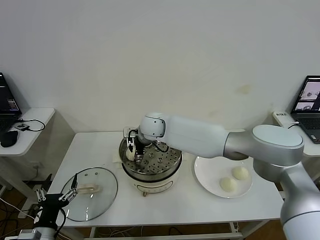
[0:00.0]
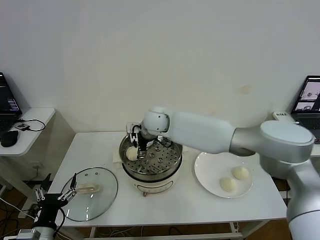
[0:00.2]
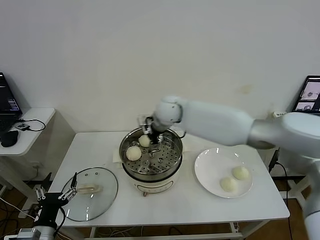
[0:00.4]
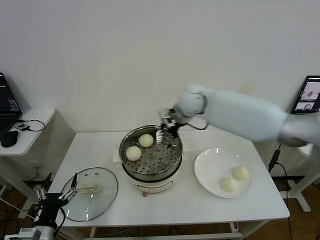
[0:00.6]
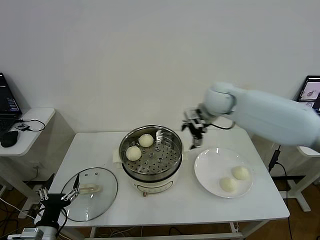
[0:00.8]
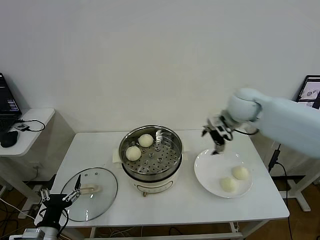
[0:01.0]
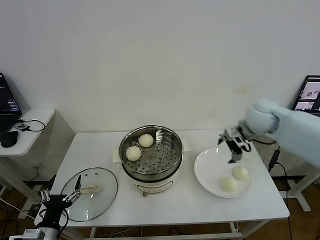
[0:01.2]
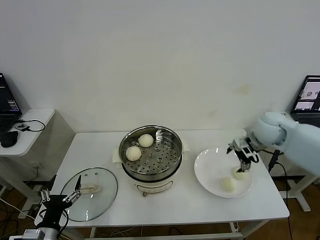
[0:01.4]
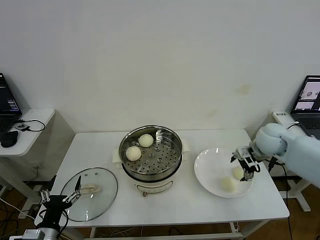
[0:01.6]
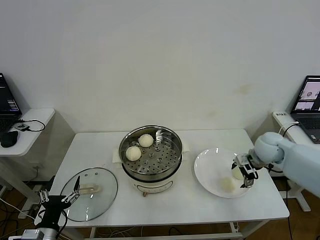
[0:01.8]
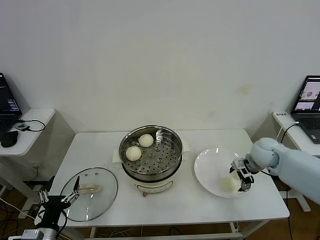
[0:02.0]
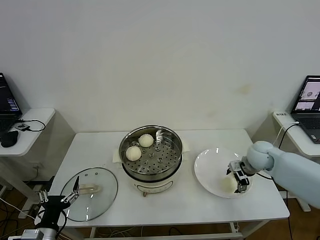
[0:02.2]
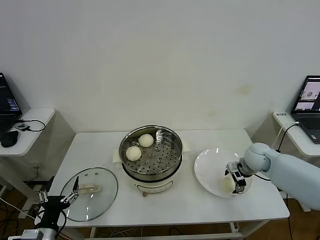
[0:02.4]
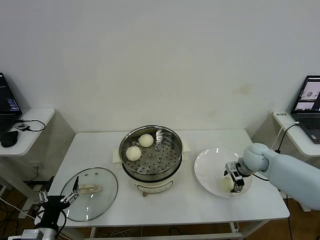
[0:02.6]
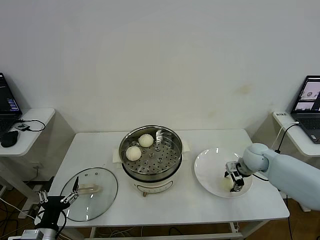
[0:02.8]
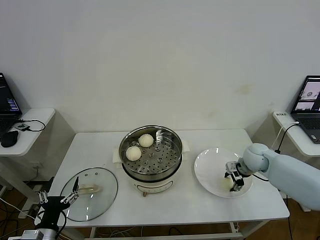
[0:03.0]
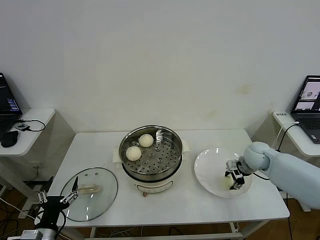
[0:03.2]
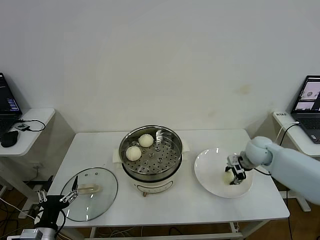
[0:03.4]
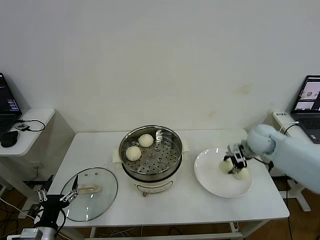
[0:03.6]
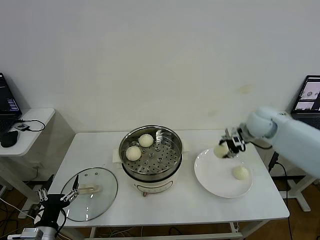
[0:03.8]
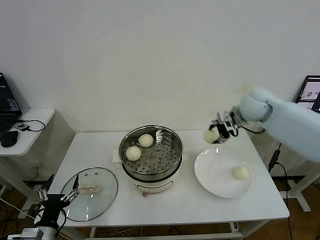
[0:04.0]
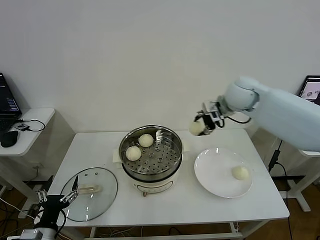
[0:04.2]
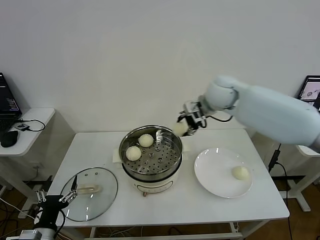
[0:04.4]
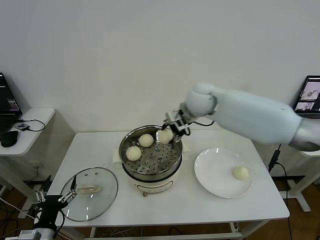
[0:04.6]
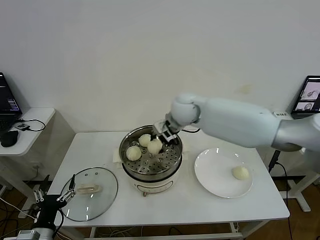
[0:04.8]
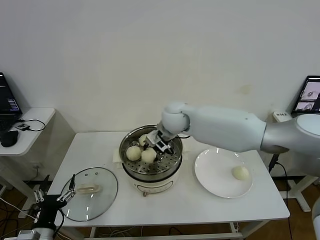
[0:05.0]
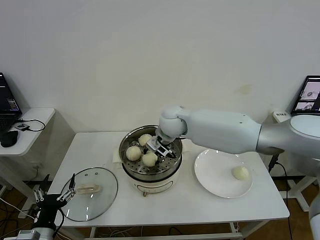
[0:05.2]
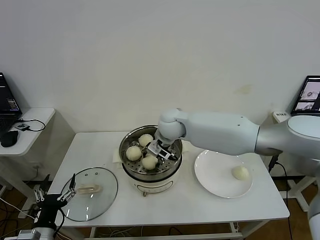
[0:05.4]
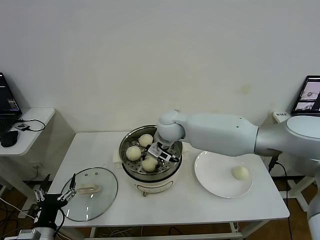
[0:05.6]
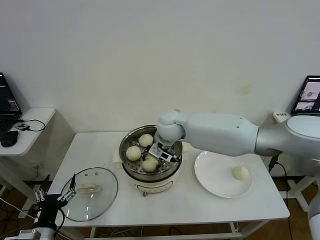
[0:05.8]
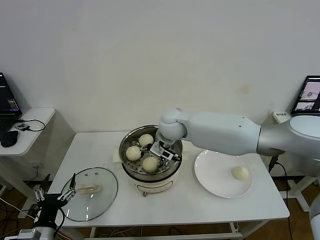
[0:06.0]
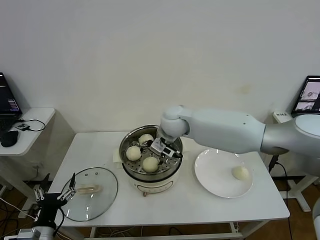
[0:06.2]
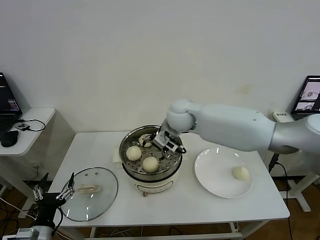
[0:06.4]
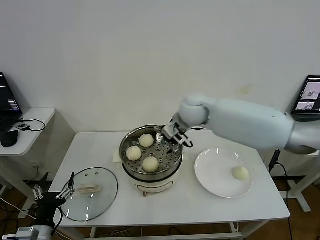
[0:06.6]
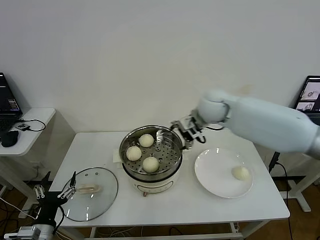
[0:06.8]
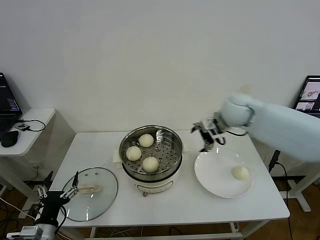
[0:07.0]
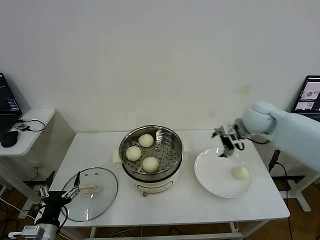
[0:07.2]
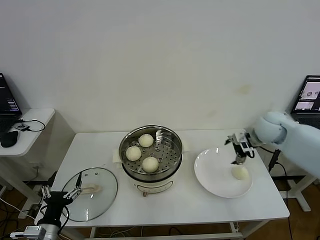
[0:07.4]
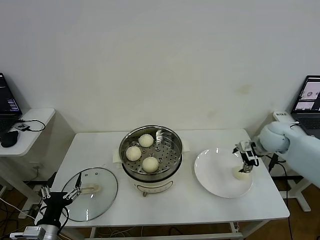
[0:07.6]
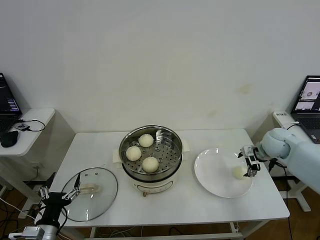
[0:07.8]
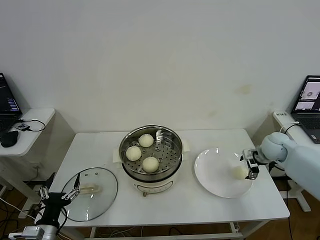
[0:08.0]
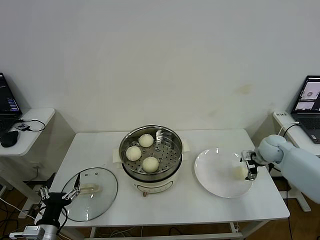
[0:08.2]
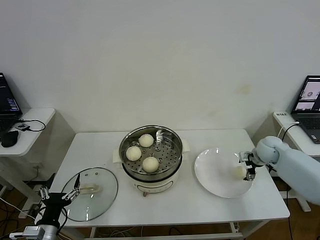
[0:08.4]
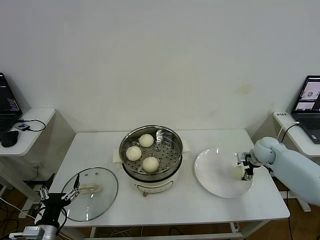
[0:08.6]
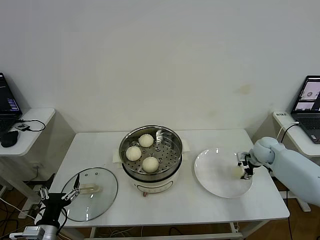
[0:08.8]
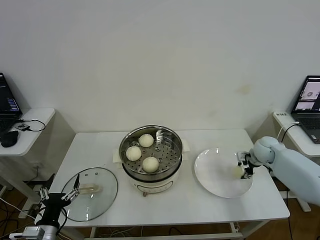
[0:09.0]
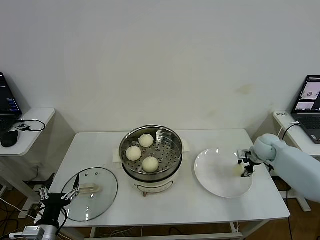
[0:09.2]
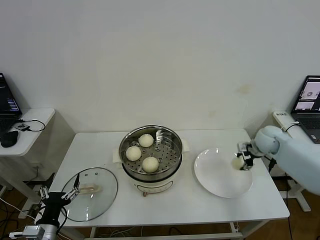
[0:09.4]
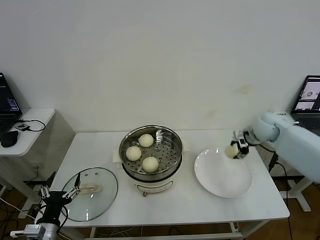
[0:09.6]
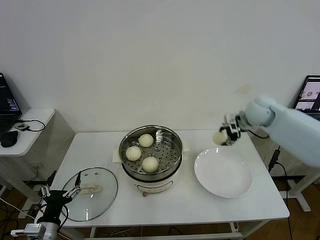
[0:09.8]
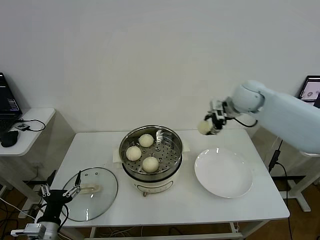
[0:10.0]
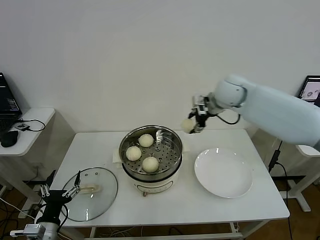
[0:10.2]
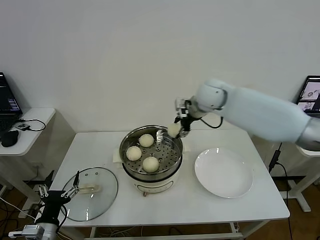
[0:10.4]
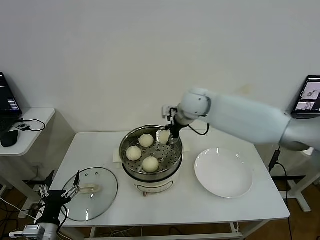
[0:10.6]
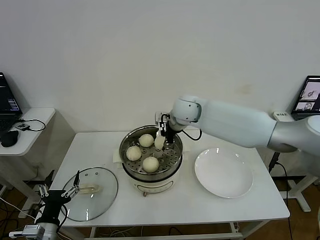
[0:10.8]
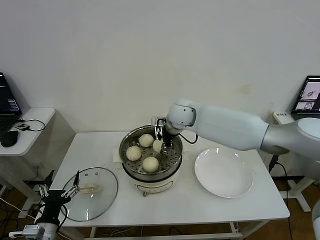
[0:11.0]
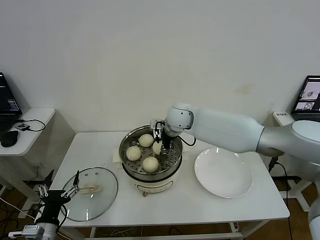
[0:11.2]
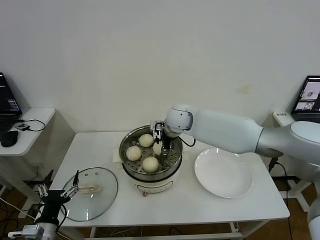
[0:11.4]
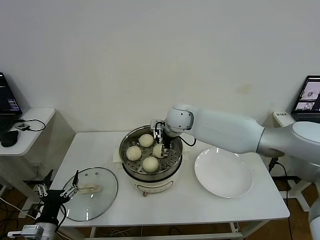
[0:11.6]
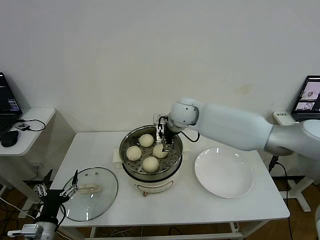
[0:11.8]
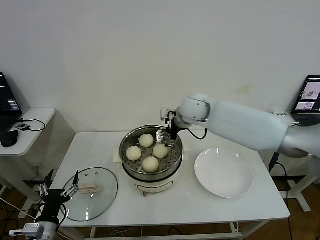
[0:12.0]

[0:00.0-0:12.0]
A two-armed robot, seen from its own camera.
Step, 0:00.0 to 0:02.8: Grasp the baozi in the plate with right gripper.
Step, 0:03.0 to 0:05.8: Place the baozi on the steamer with right gripper.
Step, 0:06.2 to 0:08.8: Grasp the baozi in the plate with right gripper.
Step, 0:09.0 to 0:11.4: Place the baozi on the steamer with right gripper.
0:00.0 to 0:01.6: The right gripper travels to the right by approximately 40 cm.
0:01.6 to 0:03.0: The right gripper moves downward, approximately 10 cm, and closes its fingers.
0:03.0 to 0:04.4: The right gripper is displaced upward and to the left by approximately 30 cm.
0:04.4 to 0:06.0: The right gripper heads to the left and downward, covering approximately 15 cm, and opens its fingers.
0:06.0 to 0:07.6: The right gripper goes about 35 cm to the right.
0:07.6 to 0:09.0: The right gripper travels downward by approximately 10 cm, and closes up.
0:09.0 to 0:10.4: The right gripper moves to the left and upward, some 35 cm.
0:10.4 to 0:12.0: The right gripper opens up.

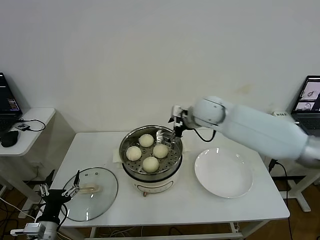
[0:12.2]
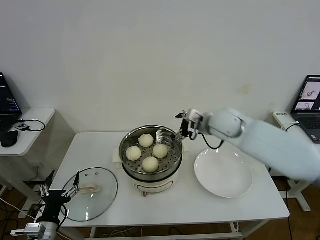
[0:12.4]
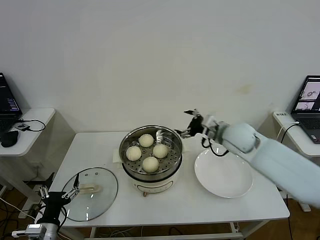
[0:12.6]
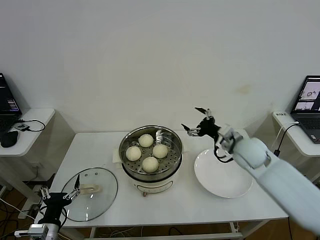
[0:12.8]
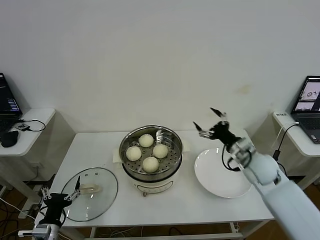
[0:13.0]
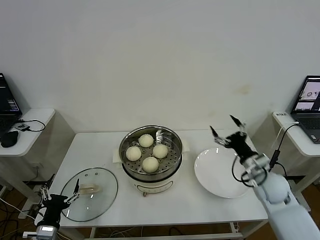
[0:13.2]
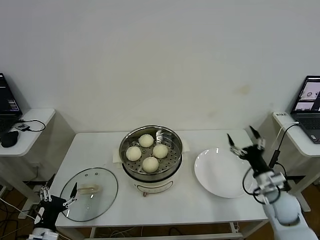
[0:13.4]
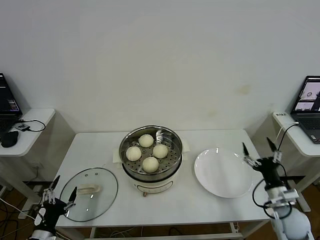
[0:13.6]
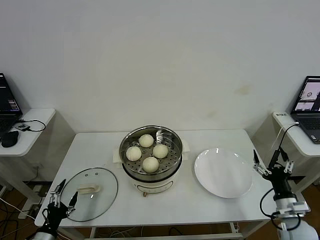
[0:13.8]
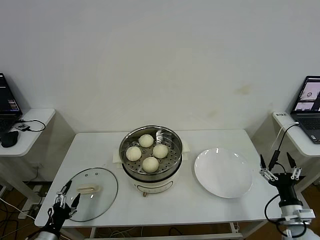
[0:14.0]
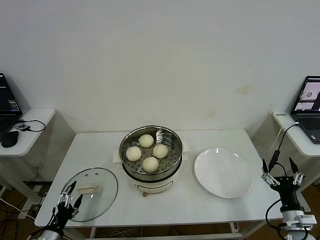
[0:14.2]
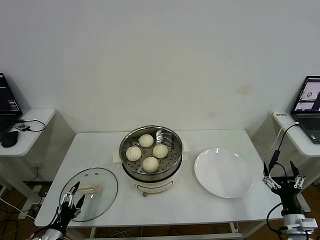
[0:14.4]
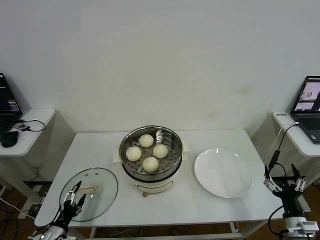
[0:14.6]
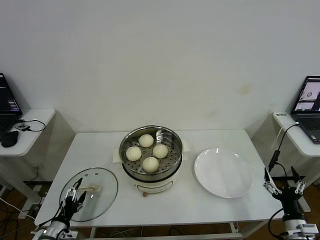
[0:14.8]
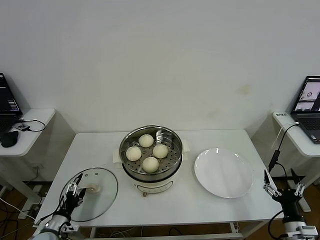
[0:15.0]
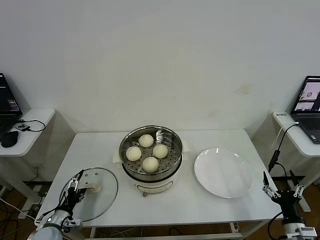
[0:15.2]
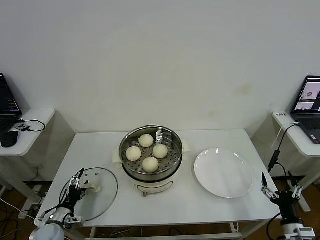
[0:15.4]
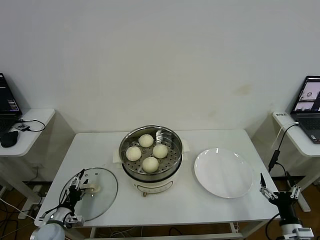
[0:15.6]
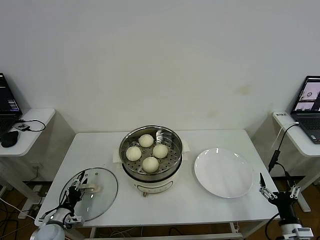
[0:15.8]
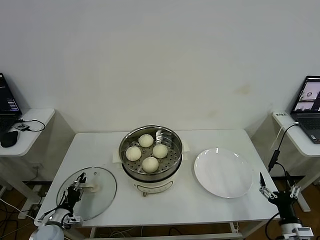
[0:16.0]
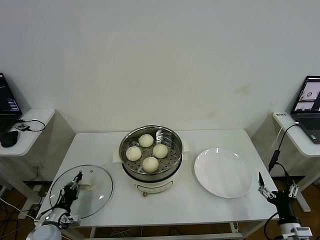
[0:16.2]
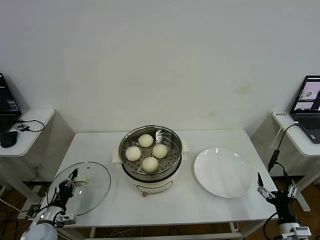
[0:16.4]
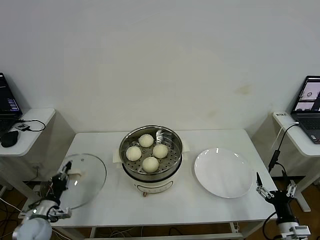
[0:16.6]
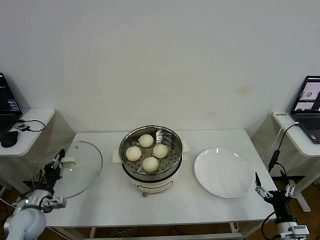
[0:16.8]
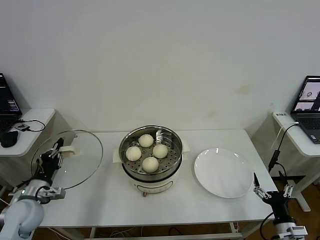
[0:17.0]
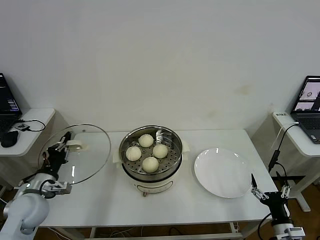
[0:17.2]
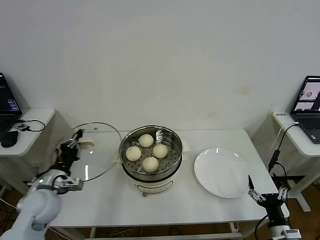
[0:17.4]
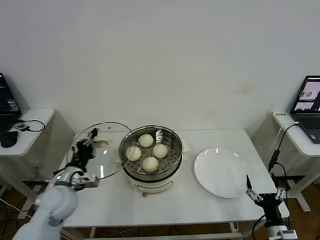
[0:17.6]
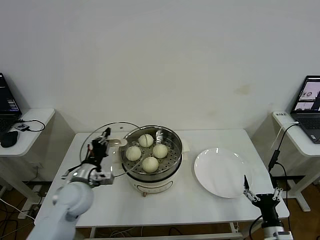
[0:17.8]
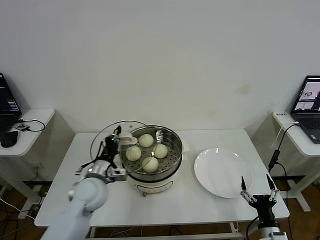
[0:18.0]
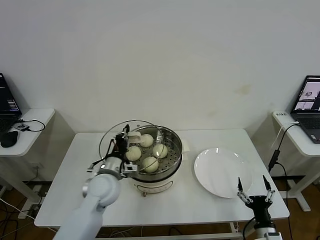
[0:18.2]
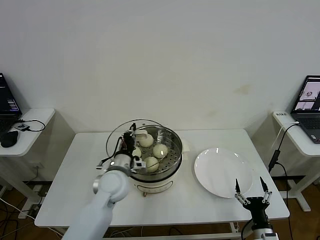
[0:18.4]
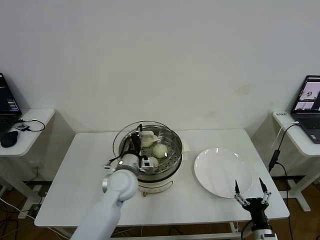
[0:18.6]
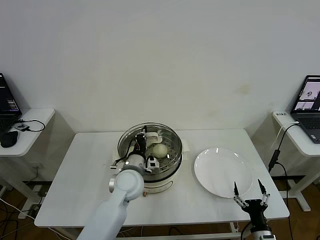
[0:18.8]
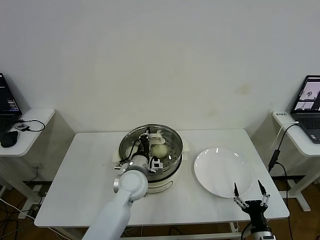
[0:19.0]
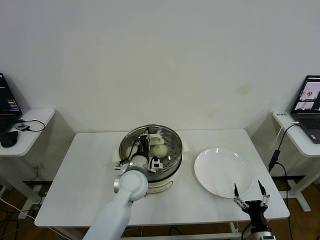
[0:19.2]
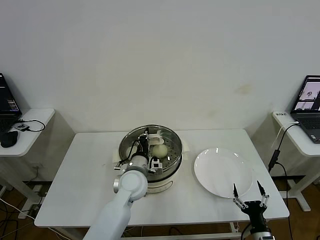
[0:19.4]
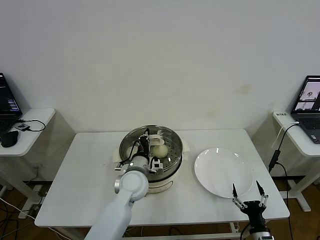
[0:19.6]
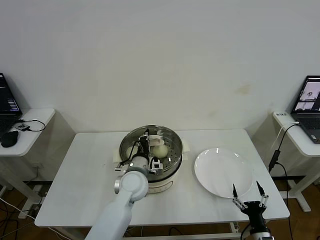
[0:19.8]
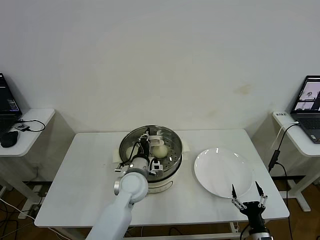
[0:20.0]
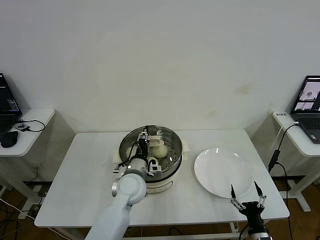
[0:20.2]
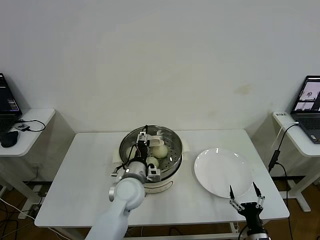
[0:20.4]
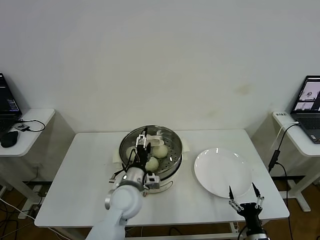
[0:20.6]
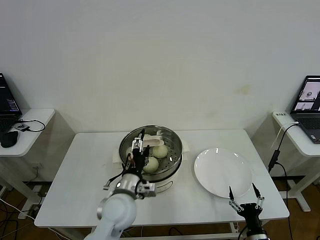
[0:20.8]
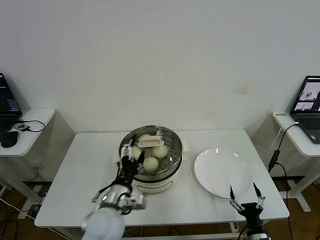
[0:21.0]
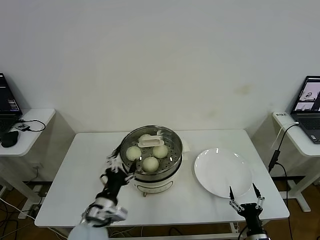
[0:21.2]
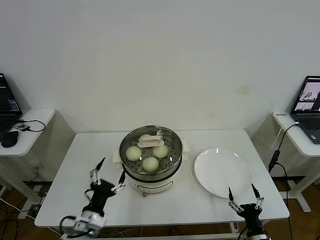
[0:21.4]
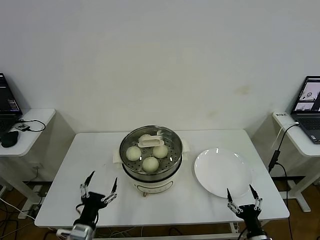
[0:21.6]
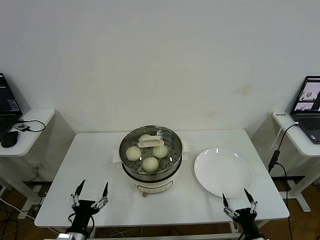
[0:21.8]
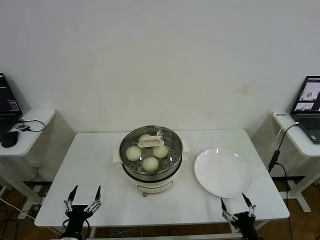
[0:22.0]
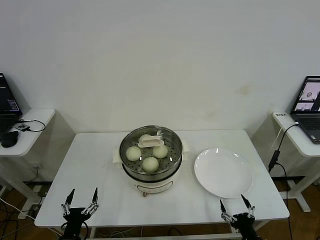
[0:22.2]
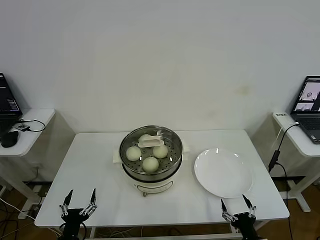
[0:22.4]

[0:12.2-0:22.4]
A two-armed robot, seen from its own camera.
Step, 0:12.2 to 0:16.2: Grasp the pot lid with left gripper.
Step, 0:16.4 to 0:19.8: Place the pot lid on the steamer with left gripper.
0:12.2 to 0:13.6: The right gripper is displaced to the right, backward and downward by approximately 40 cm.
0:13.6 to 0:15.2: The right gripper shifts some 10 cm backward and downward. The left gripper shifts roughly 10 cm forward and downward.
0:15.2 to 0:16.6: The left gripper closes up.
0:16.6 to 0:18.0: The right gripper travels to the left by some 5 cm; the left gripper heads to the right, upward and forward, covering some 25 cm.
0:18.0 to 0:19.4: The left gripper goes approximately 15 cm to the right.
0:19.4 to 0:21.0: The left gripper heads backward, covering roughly 10 cm, and opens its fingers.
0:21.0 to 0:22.4: The right gripper shifts by about 5 cm. Meanwhile the left gripper is displaced to the left, downward and backward by about 25 cm.
